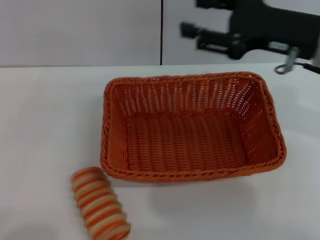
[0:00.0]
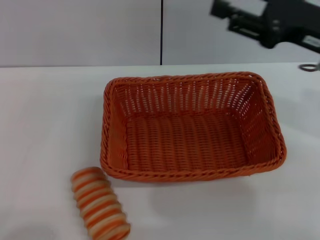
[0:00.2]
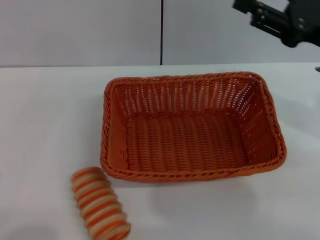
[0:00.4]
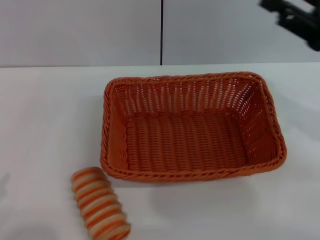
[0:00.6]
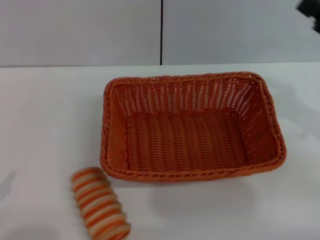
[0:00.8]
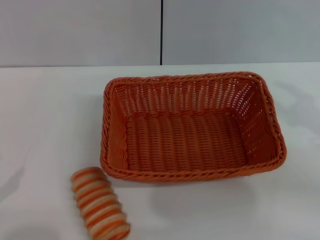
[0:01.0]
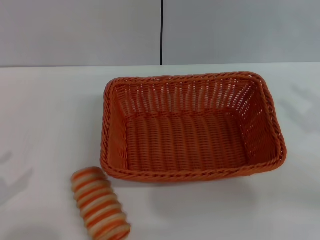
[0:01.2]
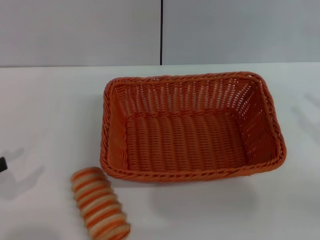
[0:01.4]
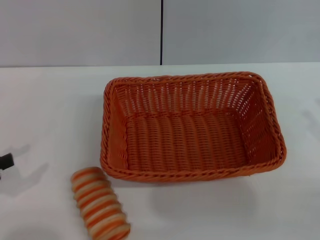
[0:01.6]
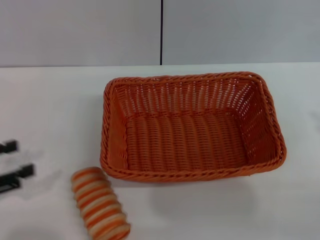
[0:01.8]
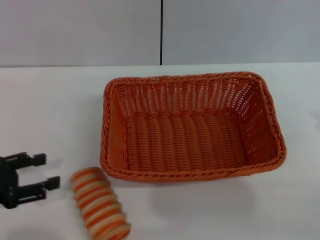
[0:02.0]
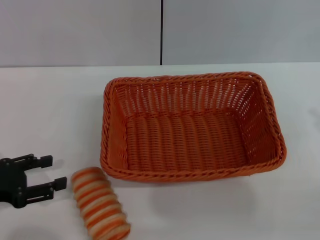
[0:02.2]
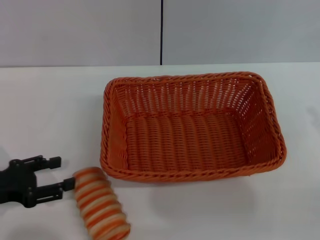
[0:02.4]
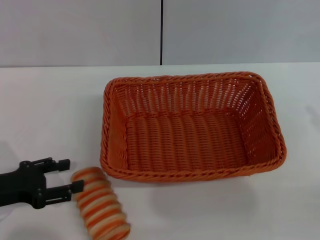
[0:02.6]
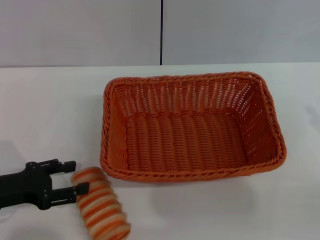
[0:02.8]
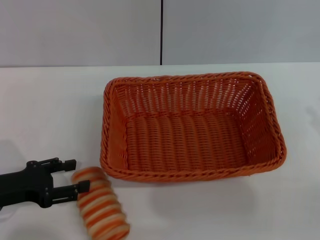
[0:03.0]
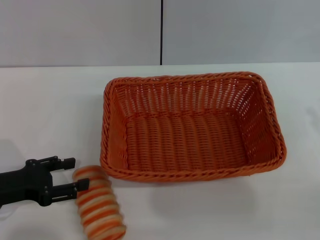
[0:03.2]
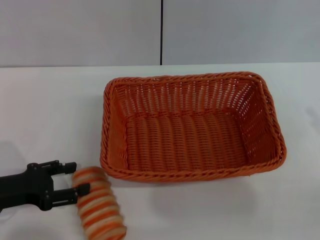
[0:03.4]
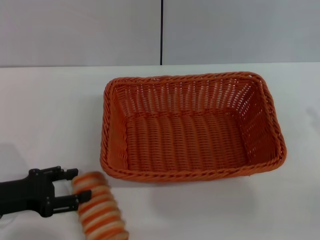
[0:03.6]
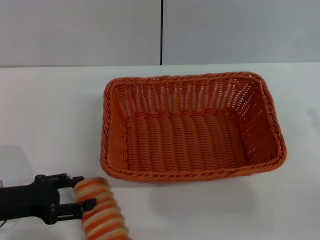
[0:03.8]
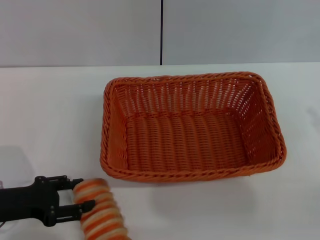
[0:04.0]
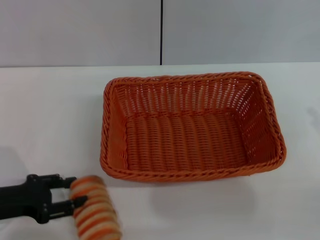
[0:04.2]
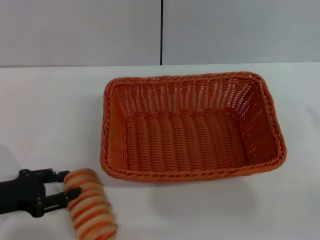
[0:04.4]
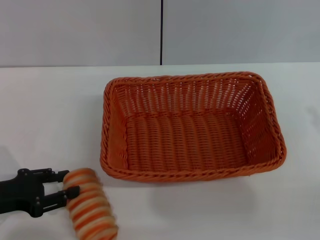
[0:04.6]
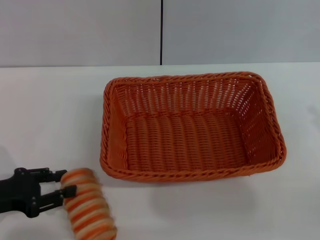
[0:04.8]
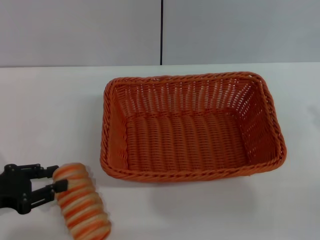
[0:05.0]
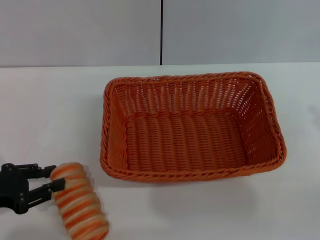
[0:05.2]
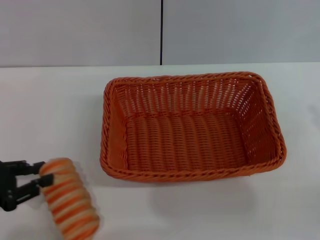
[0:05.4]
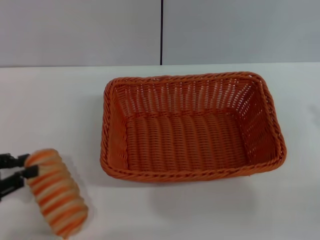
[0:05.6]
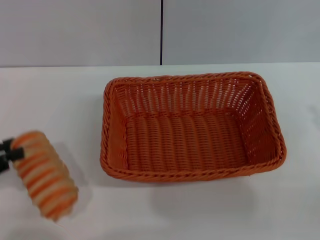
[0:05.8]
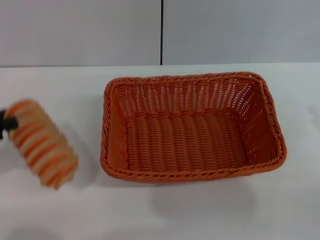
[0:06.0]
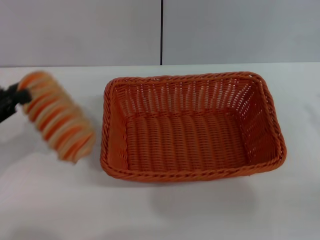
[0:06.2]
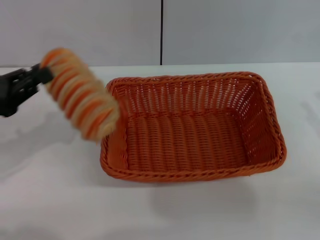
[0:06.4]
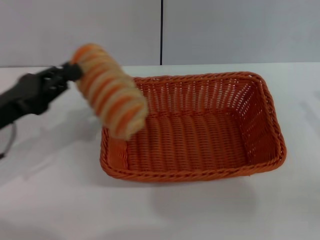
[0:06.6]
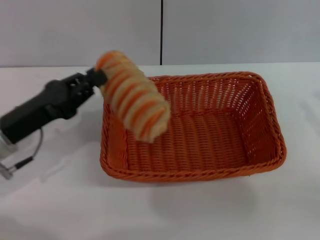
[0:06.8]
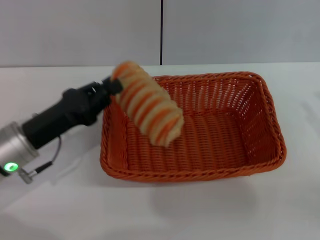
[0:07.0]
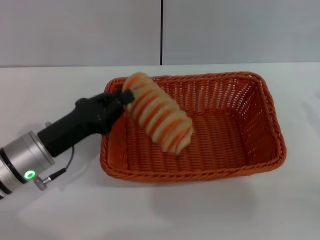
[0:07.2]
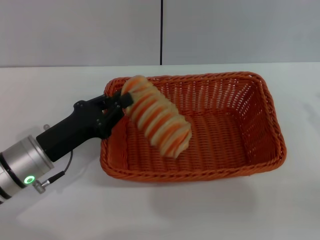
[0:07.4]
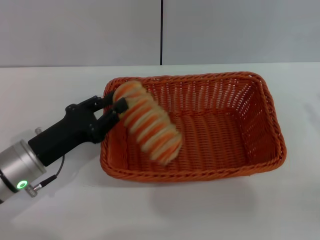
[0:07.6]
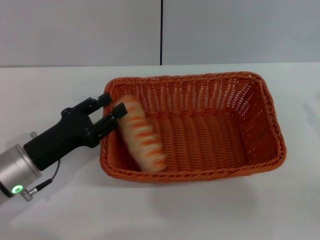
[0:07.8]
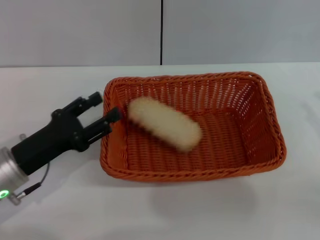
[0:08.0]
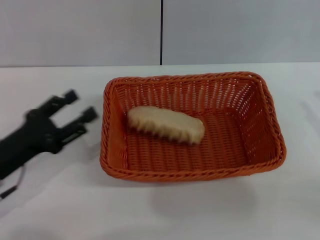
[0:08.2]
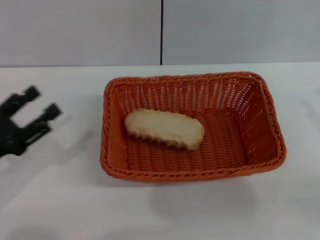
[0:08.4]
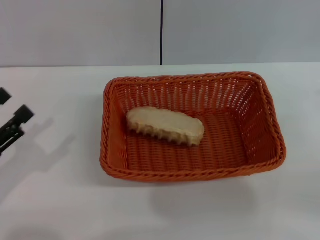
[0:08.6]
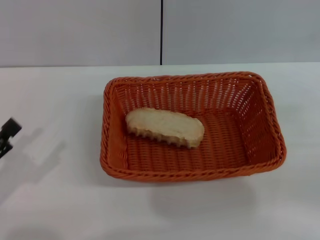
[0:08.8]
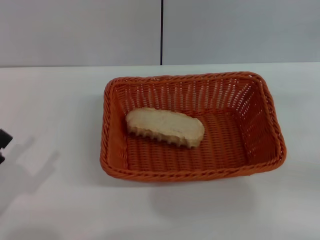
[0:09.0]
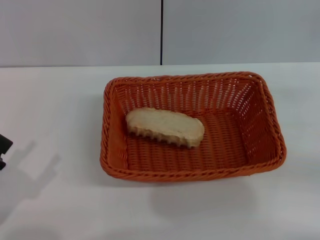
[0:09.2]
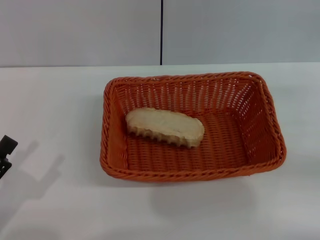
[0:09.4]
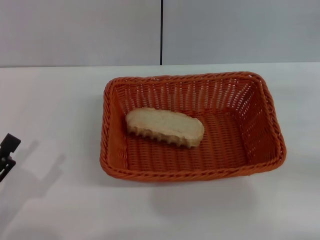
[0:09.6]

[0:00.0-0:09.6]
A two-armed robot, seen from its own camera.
Step, 0:00.0 to 0:05.8: Pick up the long bread with the left gripper.
Step, 0:06.0 to 0:07.8: Place the long bread into the light basket with the left gripper.
0:00.0 to 0:01.6: The left gripper shifts approximately 15 cm forward and upward. Meanwhile the right gripper heads to the right, backward and downward, covering roughly 20 cm.
0:01.6 to 0:03.2: The left gripper moves to the right, downward and forward, approximately 10 cm.
0:03.2 to 0:04.8: The left gripper closes.
0:04.8 to 0:06.4: The left gripper moves upward, some 5 cm, and closes up.
0:06.4 to 0:08.0: The left gripper goes approximately 10 cm downward and to the right, and opens.
0:08.0 to 0:09.6: The left gripper goes roughly 15 cm backward and to the left, and opens up. Meanwhile the right gripper moves forward, about 5 cm.
